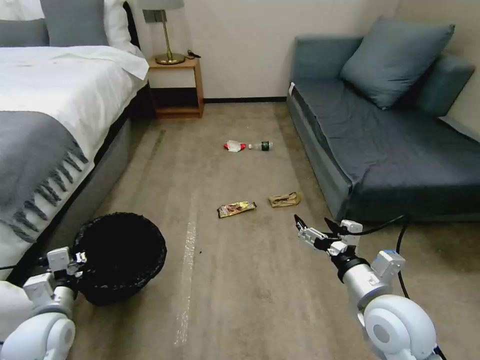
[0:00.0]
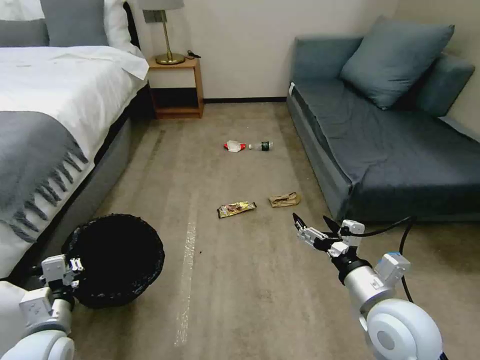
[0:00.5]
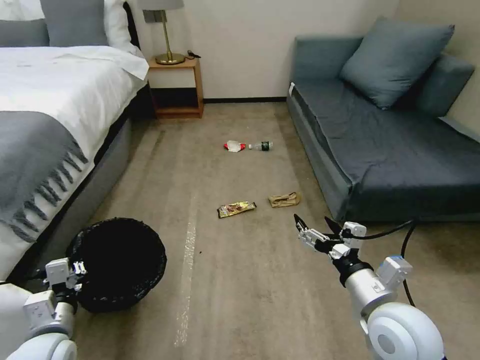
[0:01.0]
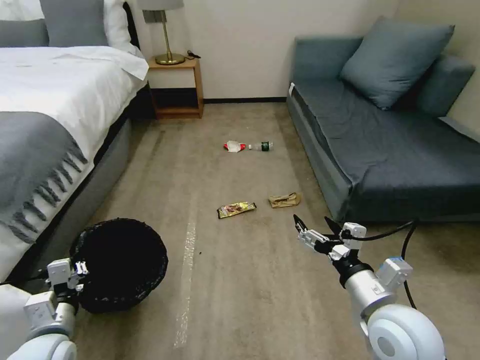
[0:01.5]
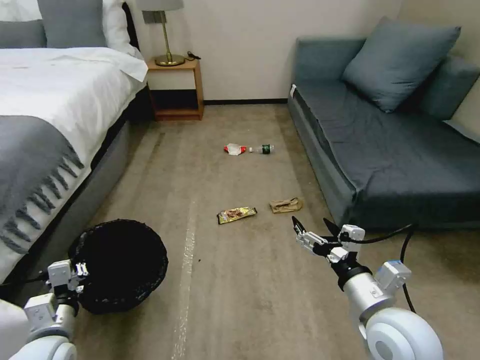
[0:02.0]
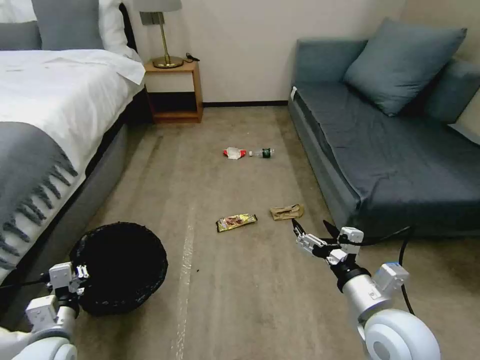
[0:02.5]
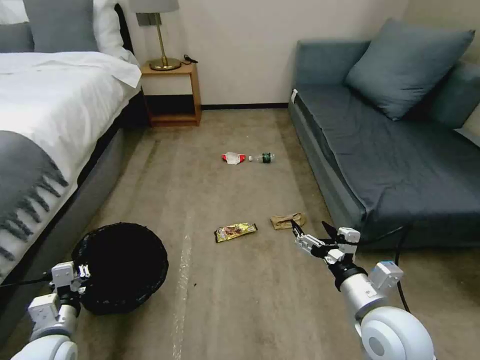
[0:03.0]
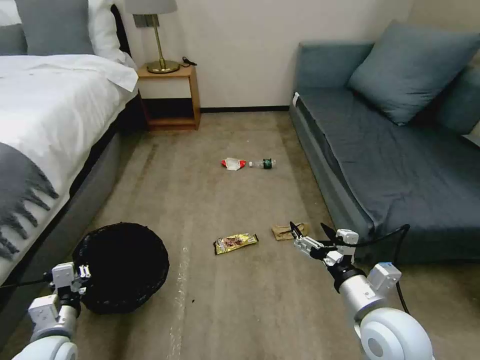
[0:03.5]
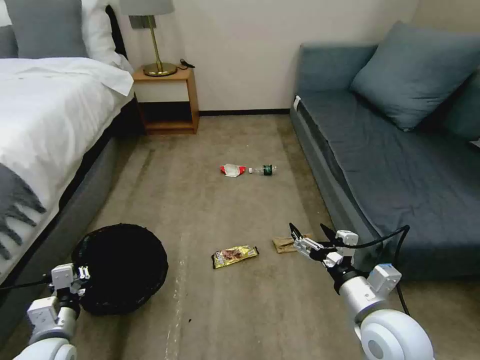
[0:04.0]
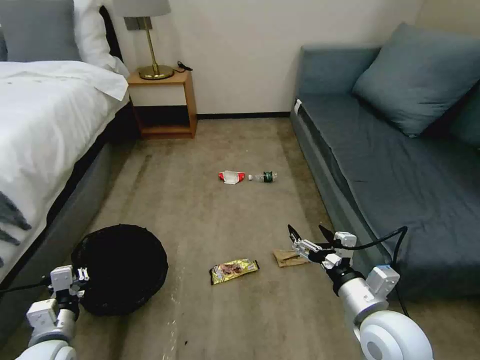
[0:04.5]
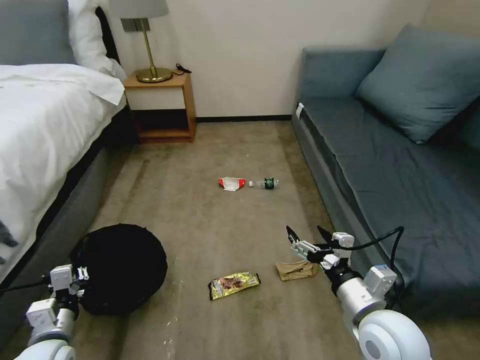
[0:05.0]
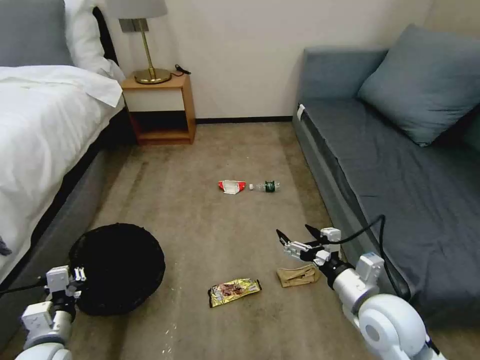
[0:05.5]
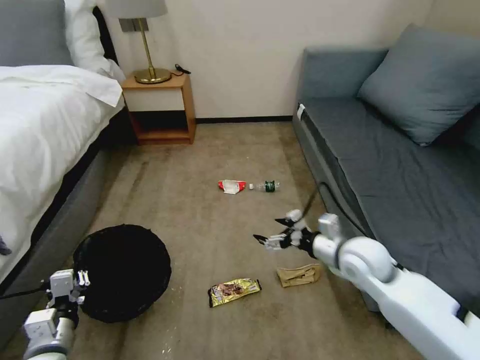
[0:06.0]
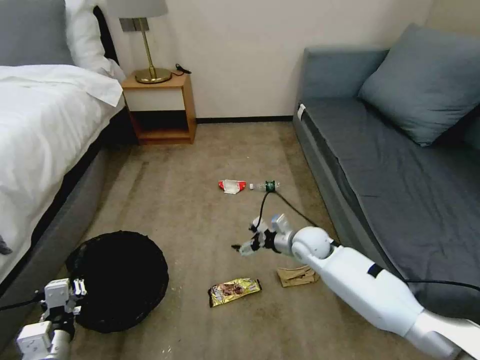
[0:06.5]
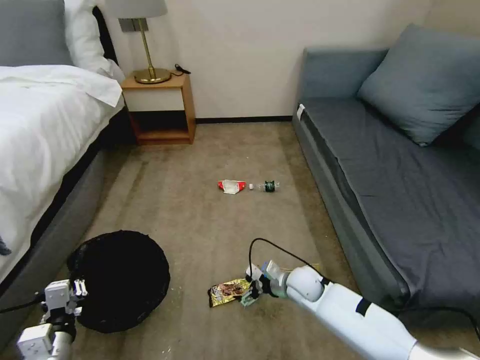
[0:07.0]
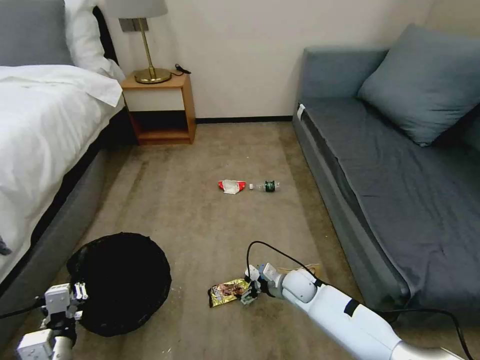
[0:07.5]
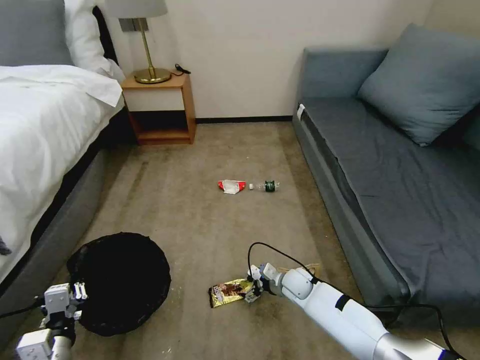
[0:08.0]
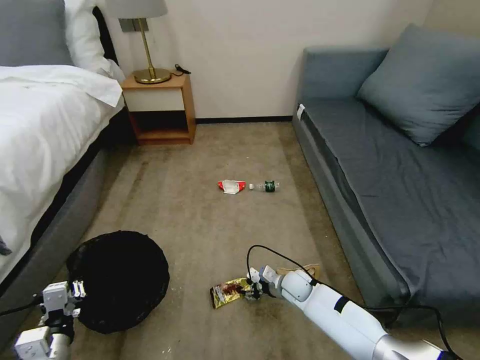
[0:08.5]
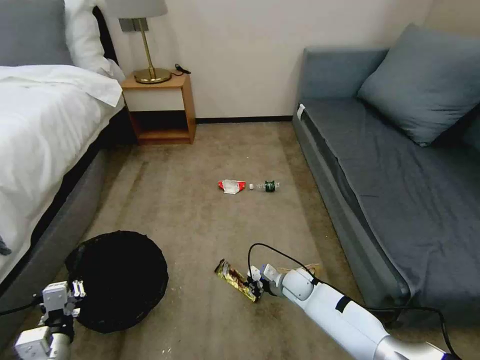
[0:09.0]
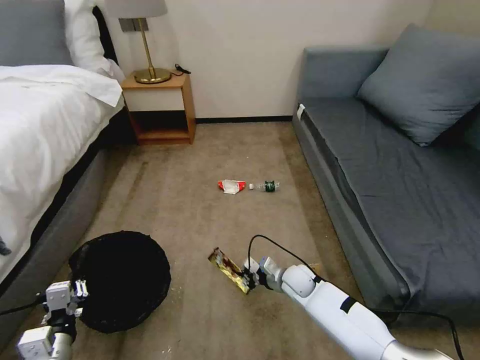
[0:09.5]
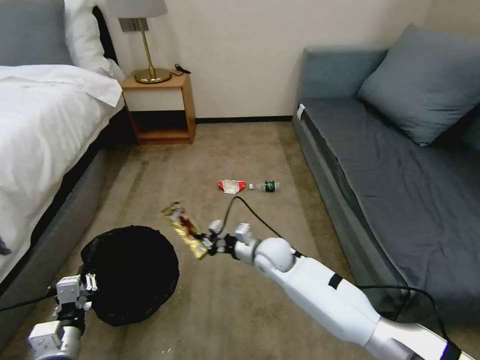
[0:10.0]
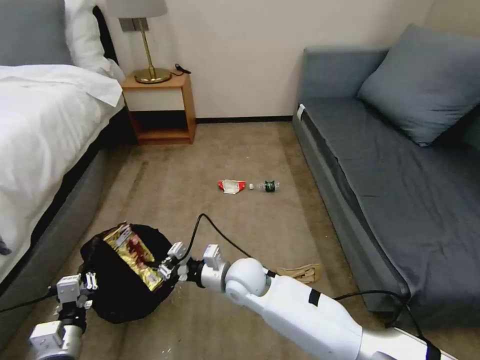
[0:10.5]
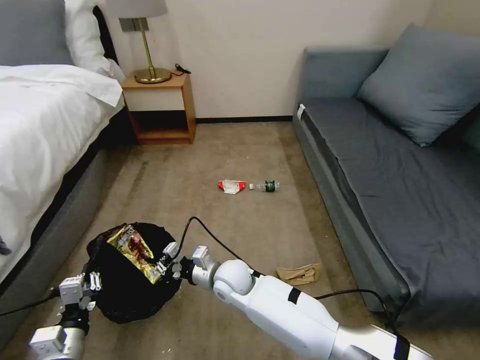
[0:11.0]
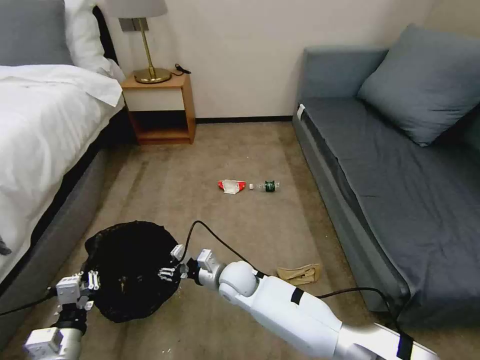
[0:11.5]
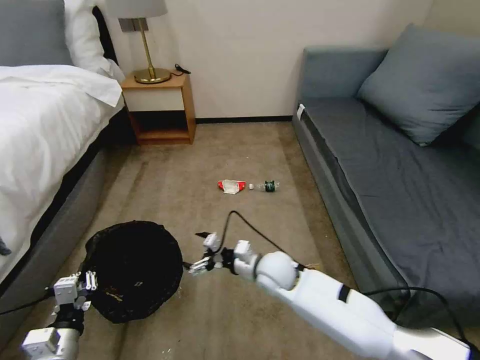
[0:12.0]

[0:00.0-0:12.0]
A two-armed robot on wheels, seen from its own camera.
Task of the whole recording: Pick up the trash bin, then pick up the garbage on the floor and place it into the trash bin.
0:00.0 to 0:02.0: The grippers stay close to where they were, moving slightly.
0:04.0 to 0:06.0: The right gripper shifts about 15 cm forward.
0:06.0 to 0:08.0: The right gripper shifts roughly 25 cm downward.
0:08.0 to 0:10.0: The right gripper travels upward and to the left by approximately 15 cm, and closes its fingers.
0:10.0 to 0:12.0: The right gripper reaches roughly 10 cm to the left, then returns, and opens up.

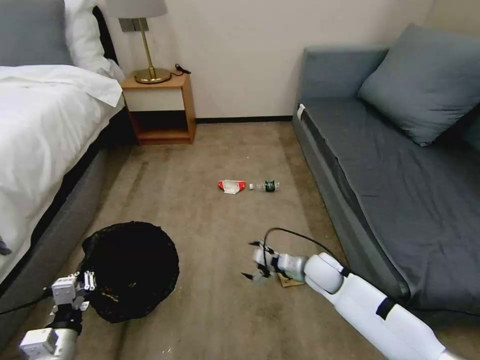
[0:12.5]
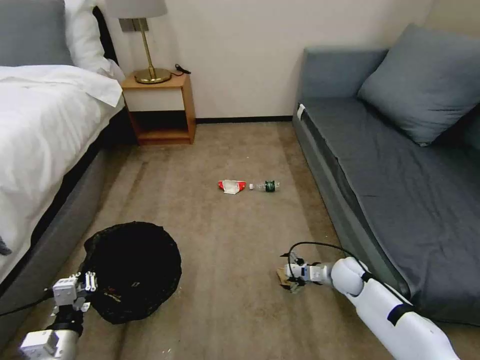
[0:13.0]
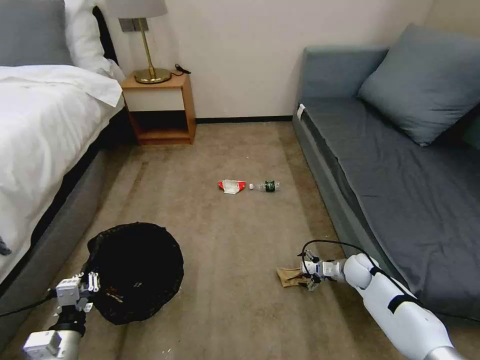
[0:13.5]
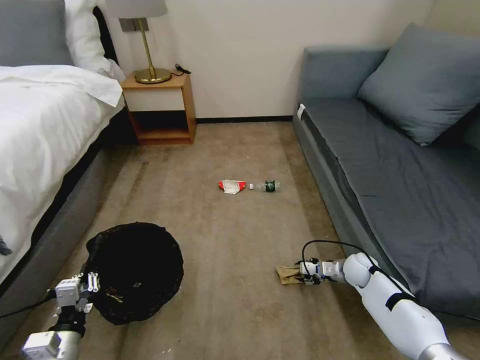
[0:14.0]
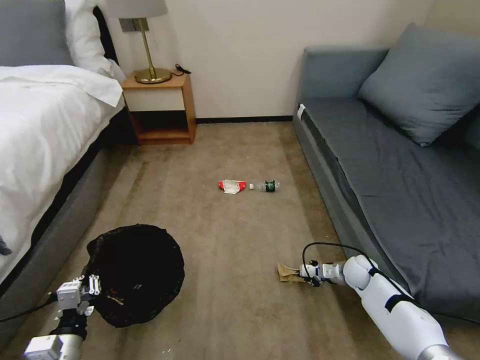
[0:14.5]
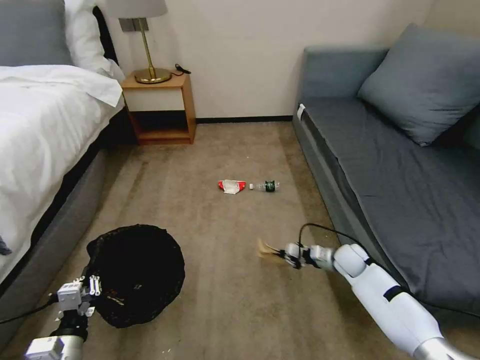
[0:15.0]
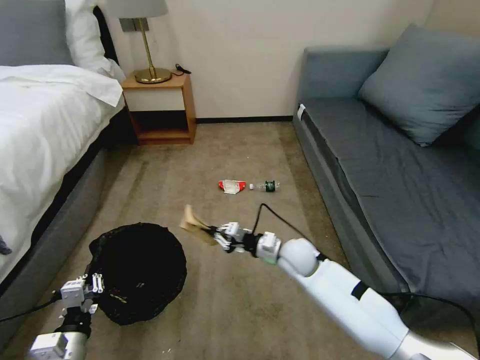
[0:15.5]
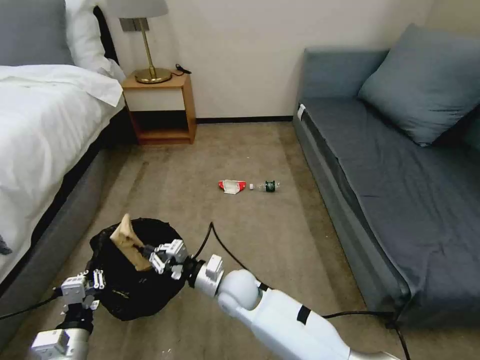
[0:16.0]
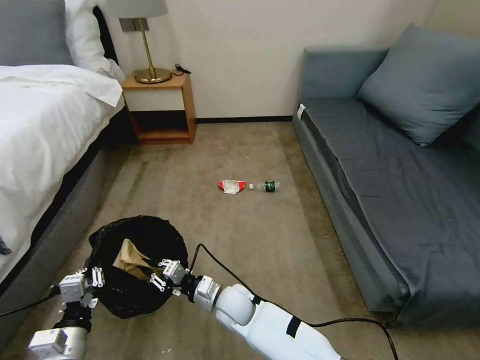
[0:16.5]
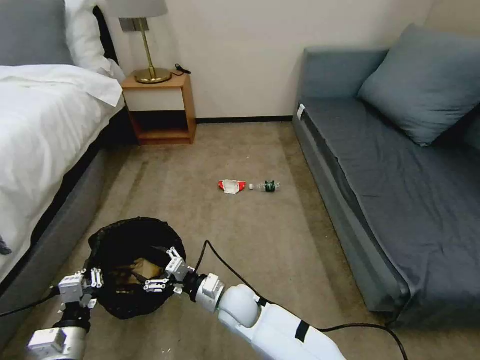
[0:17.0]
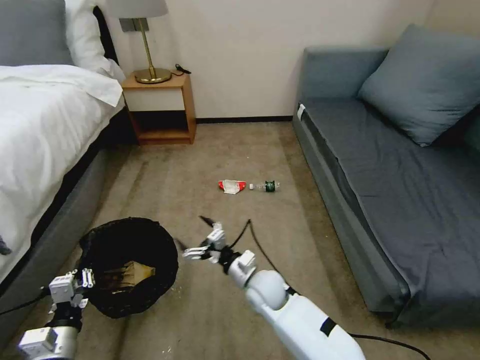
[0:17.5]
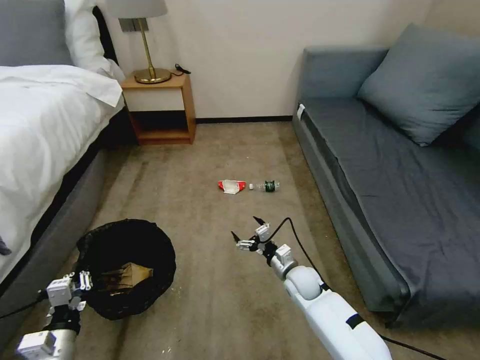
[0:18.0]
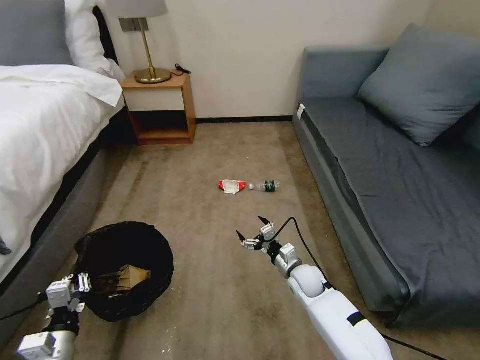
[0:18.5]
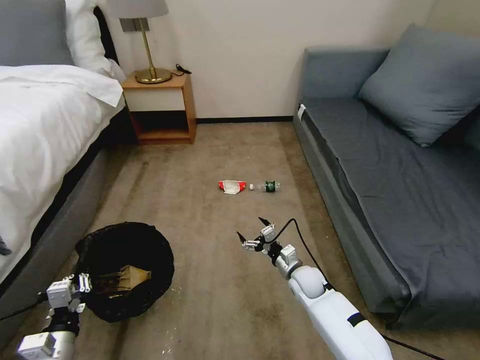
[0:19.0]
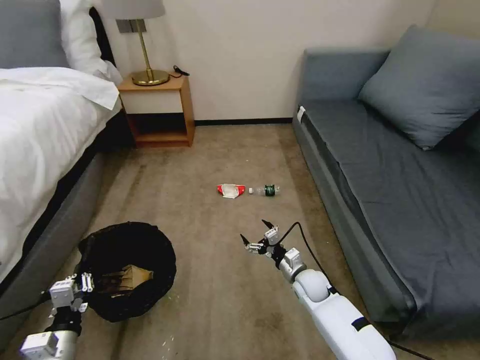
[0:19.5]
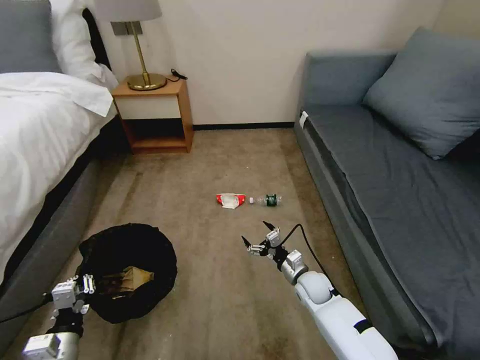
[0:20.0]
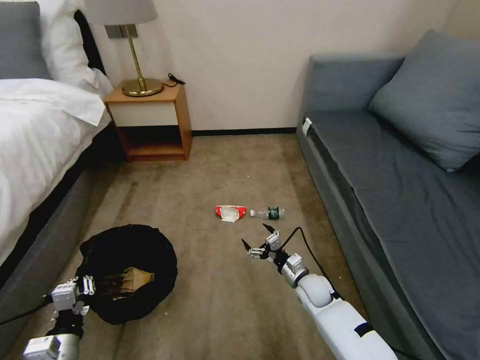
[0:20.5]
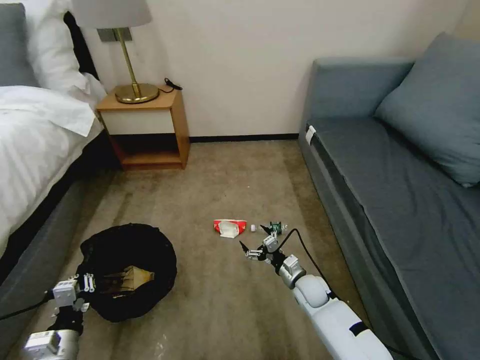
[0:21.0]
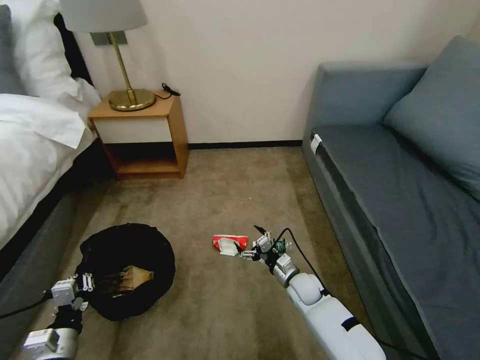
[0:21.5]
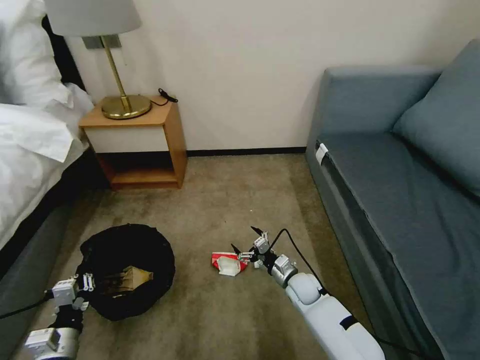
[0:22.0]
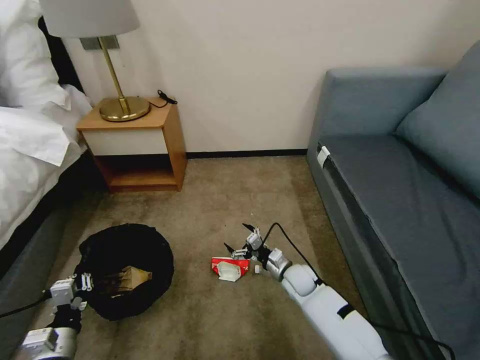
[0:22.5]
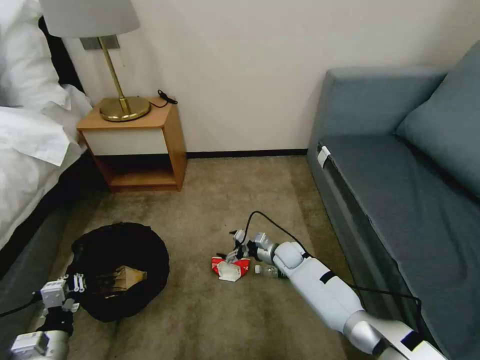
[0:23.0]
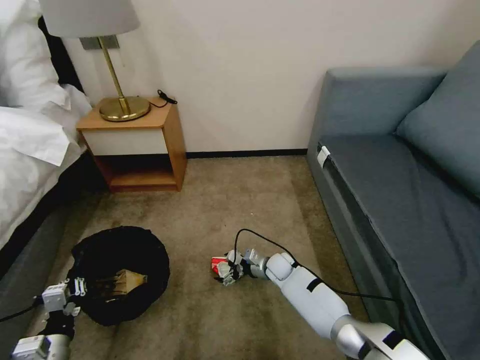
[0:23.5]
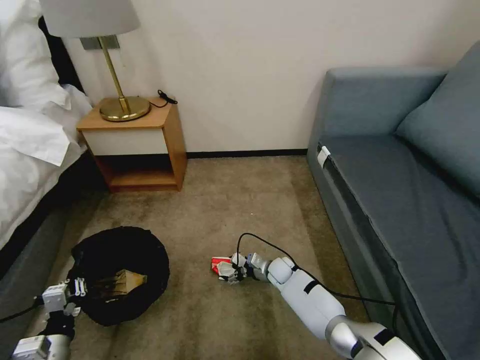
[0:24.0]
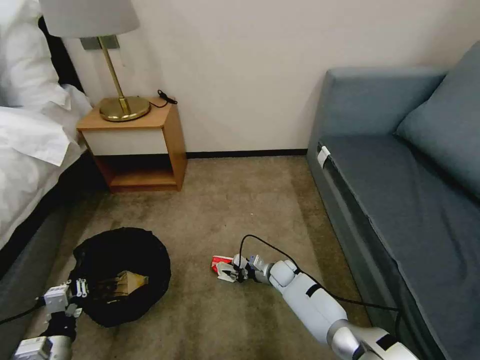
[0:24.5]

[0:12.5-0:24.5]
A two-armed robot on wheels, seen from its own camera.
Task of the whole recording: Pick up the trash bin, then pick up the garbage on the floor and place it into the trash bin.
0:12.5 to 0:14.5: The right gripper moves to the right and downward, approximately 15 cm, and closes.
0:14.5 to 0:16.5: The right gripper moves to the left, approximately 40 cm.
0:16.5 to 0:18.5: The right gripper travels to the right by about 20 cm, and opens its fingers.
0:20.5 to 0:22.5: The right gripper ends up approximately 5 cm from where it was.
0:22.5 to 0:24.5: The right gripper moves downward, about 5 cm, and closes.

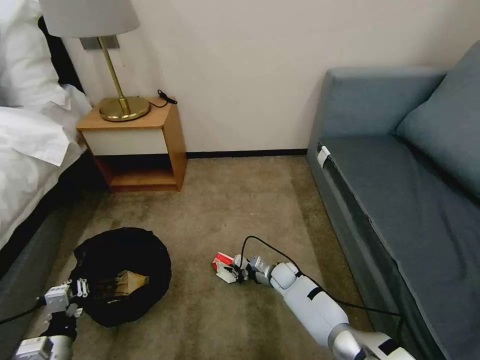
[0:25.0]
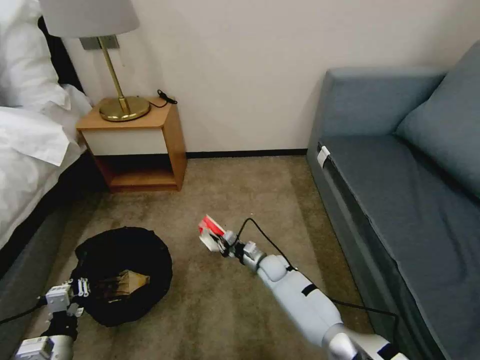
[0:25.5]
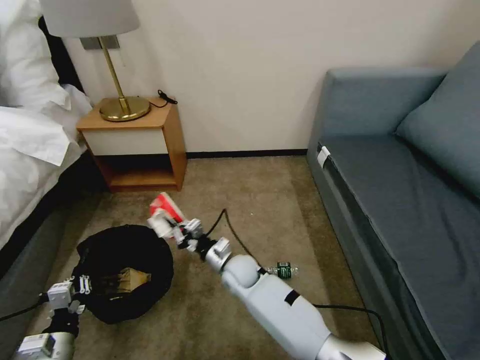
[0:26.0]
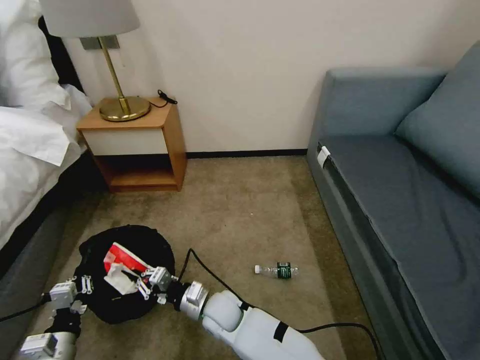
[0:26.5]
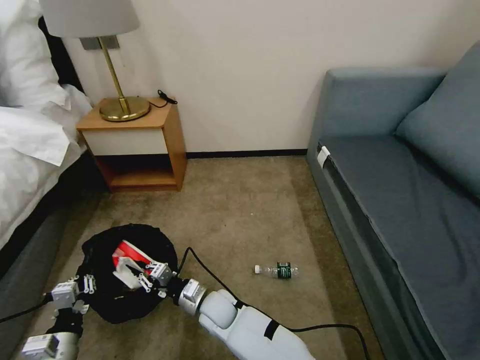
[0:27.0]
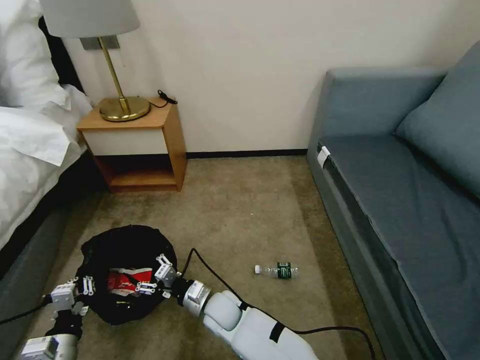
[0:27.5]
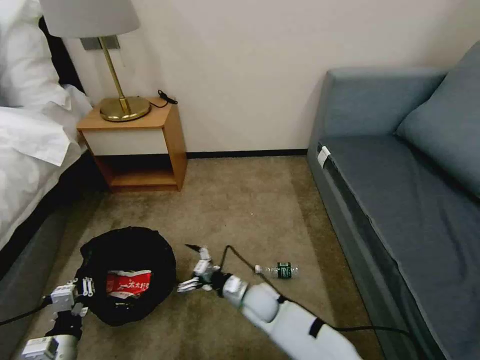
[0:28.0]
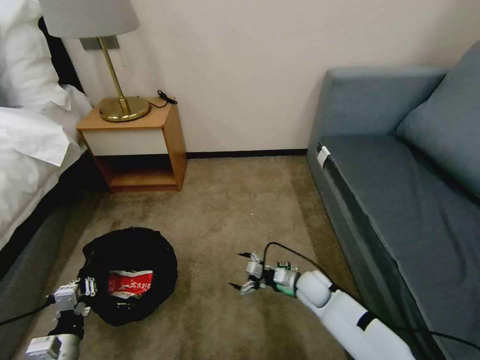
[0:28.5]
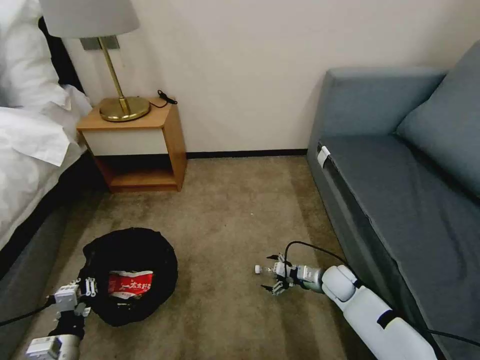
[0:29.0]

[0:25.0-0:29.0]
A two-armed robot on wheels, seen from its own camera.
Task of the whole recording: Pick up the trash bin, then pick up the garbage on the floor and place it into the trash bin.
0:25.0 to 0:27.0: The right gripper is displaced to the left, backward and upward by about 25 cm.
0:27.0 to 0:29.0: The right gripper is displaced to the right by some 35 cm, and opens up.
